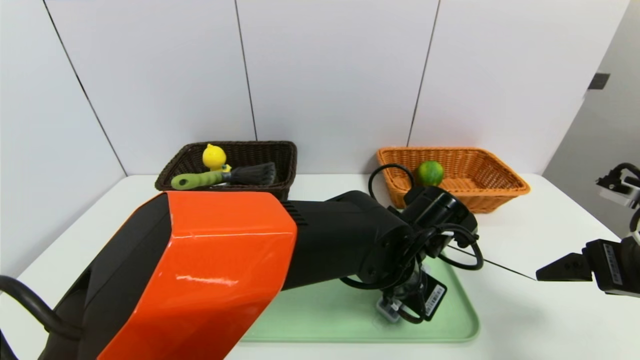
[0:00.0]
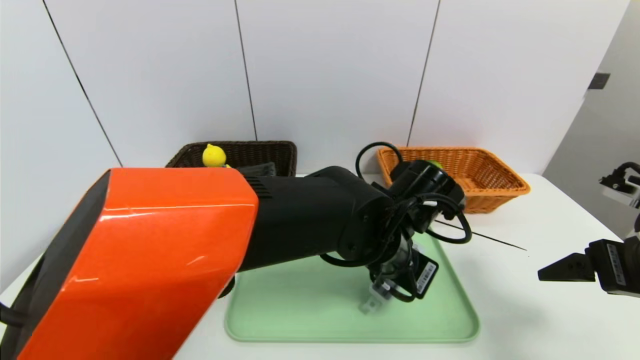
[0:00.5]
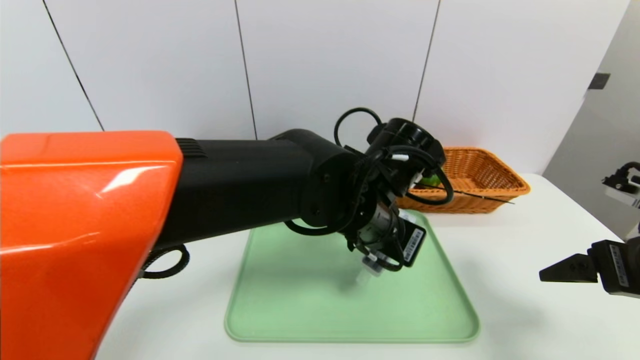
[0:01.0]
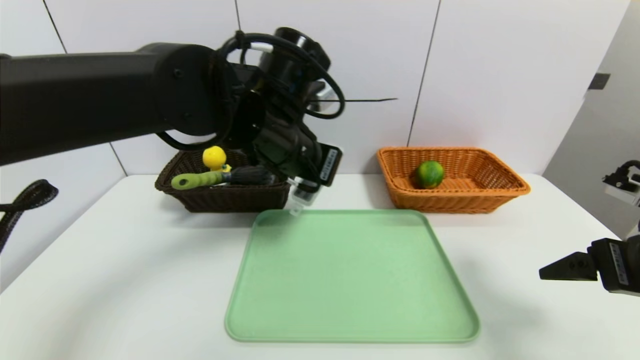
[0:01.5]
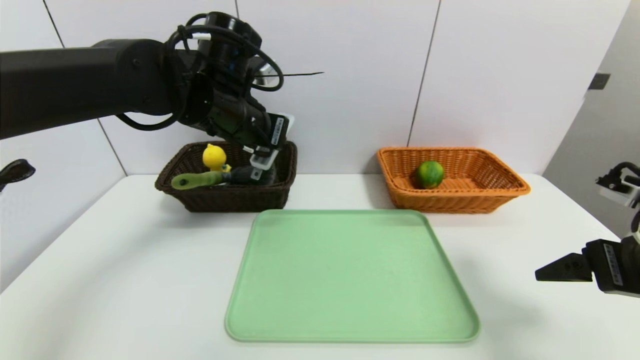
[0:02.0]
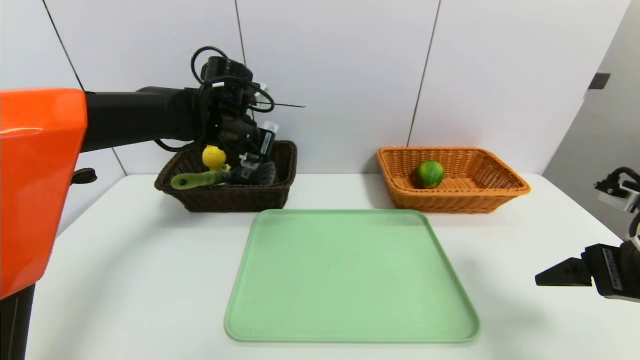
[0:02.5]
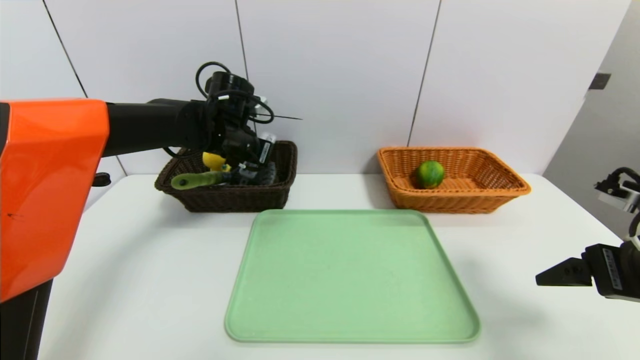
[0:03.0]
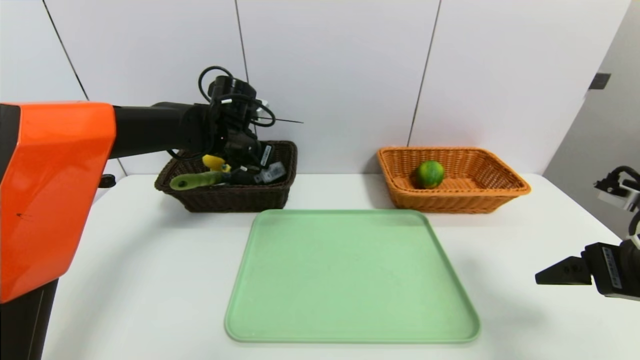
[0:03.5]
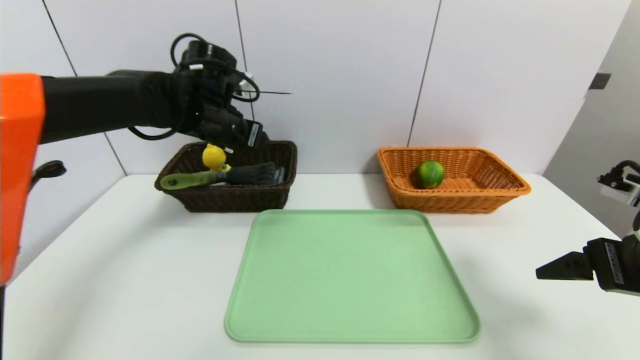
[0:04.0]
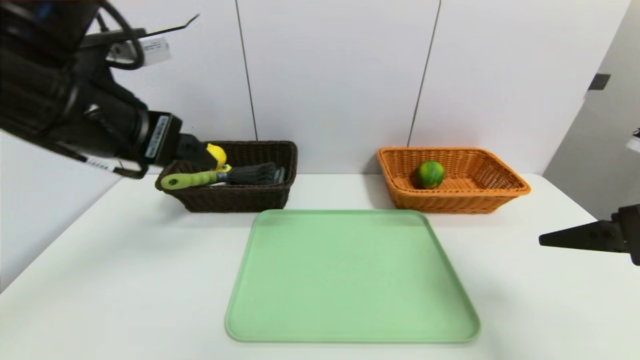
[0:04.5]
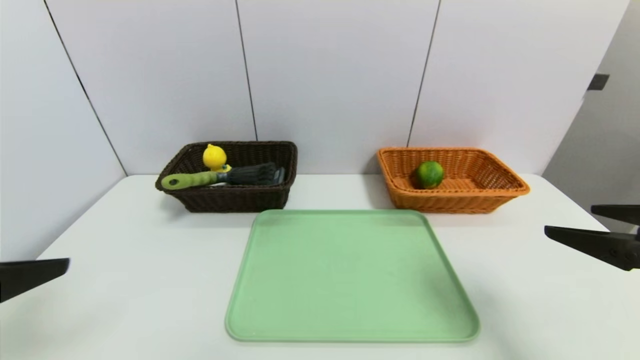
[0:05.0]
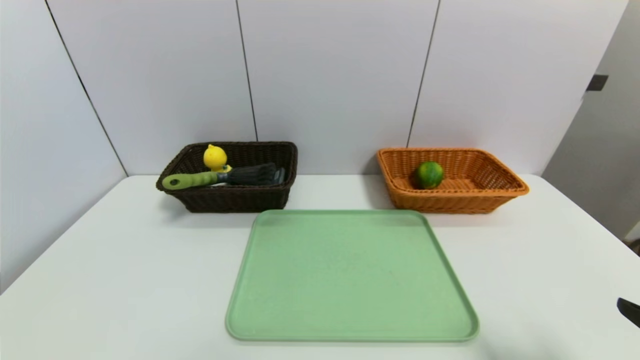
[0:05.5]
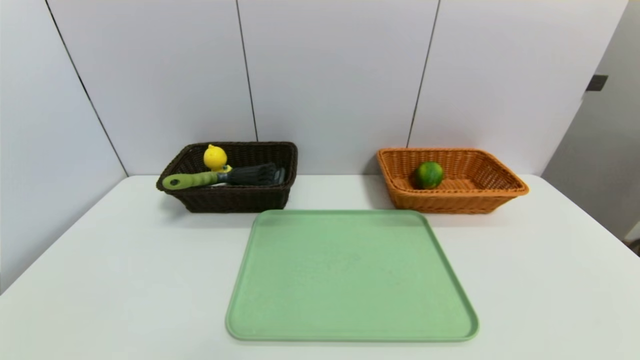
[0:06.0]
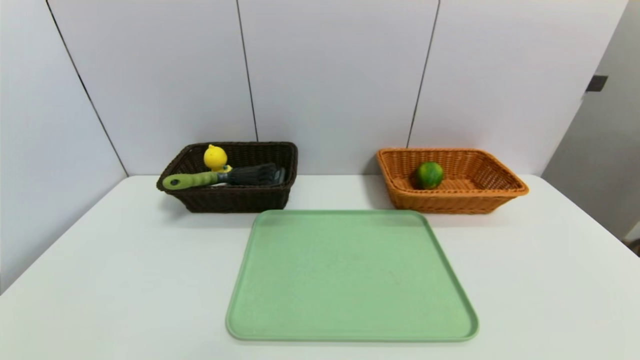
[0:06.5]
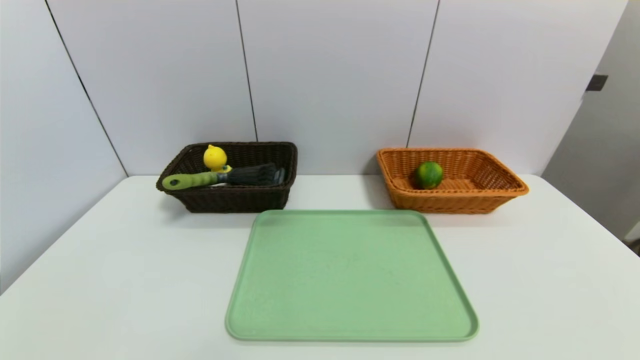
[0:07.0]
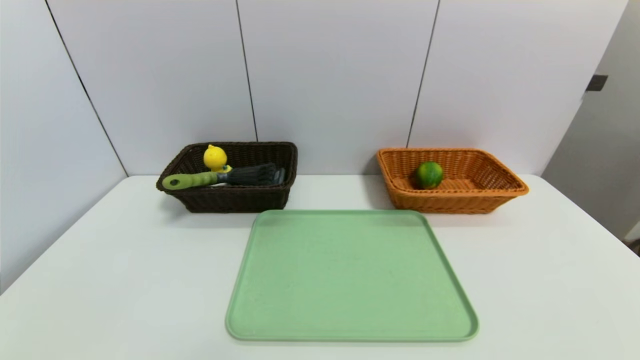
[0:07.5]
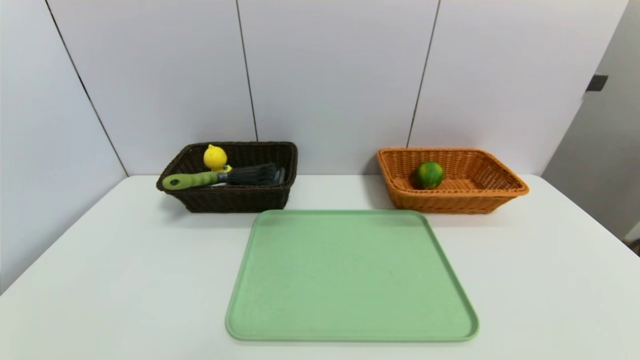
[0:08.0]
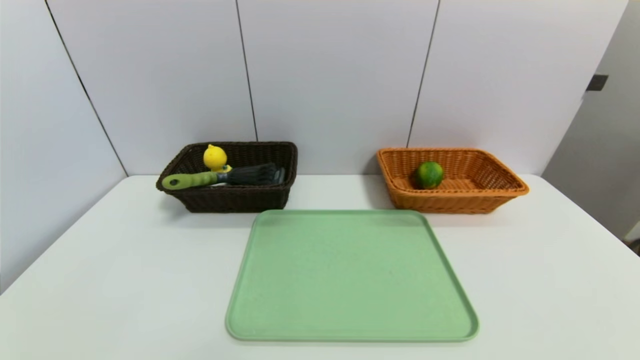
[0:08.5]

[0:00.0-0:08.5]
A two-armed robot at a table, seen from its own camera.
Task of the whole recording: place the food in the right basket with the right gripper, and place the non food items in the left basket with the left gripper.
Step, 0:00.0 to 0:03.5: Grasp the compass and put it in the left basket.
0:00.0 to 0:02.0: The left gripper moves to the left, upward and forward, some 30 cm.
0:02.0 to 0:04.0: The left gripper opens up.
0:04.0 to 0:06.5: The right gripper is displaced backward by roughly 20 cm. The left gripper travels backward by approximately 50 cm.

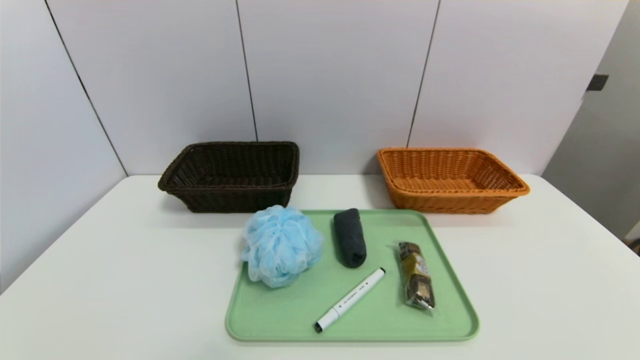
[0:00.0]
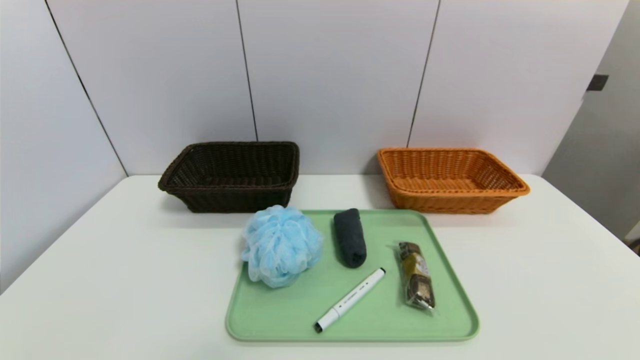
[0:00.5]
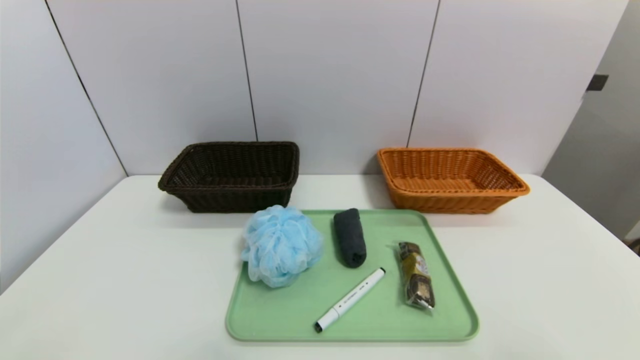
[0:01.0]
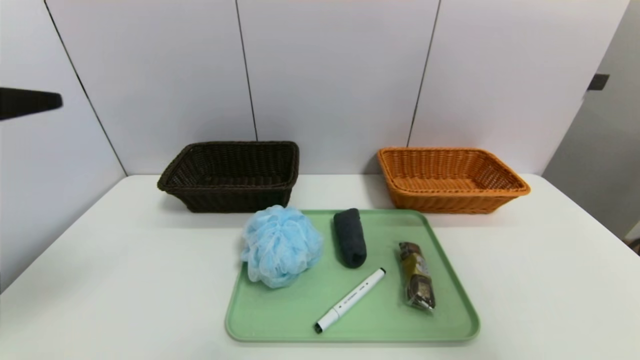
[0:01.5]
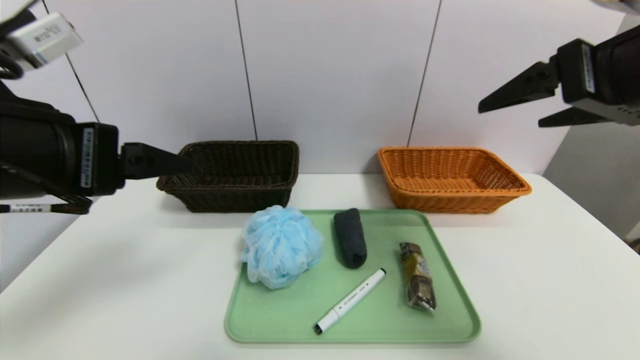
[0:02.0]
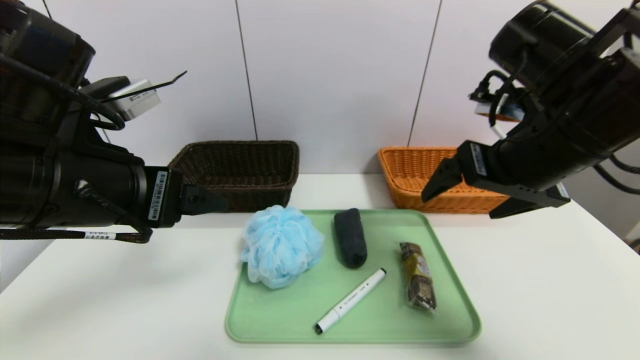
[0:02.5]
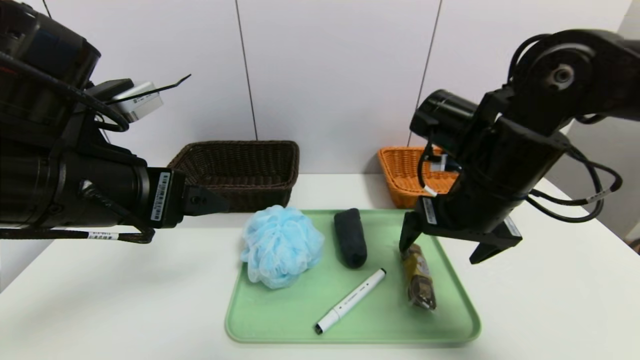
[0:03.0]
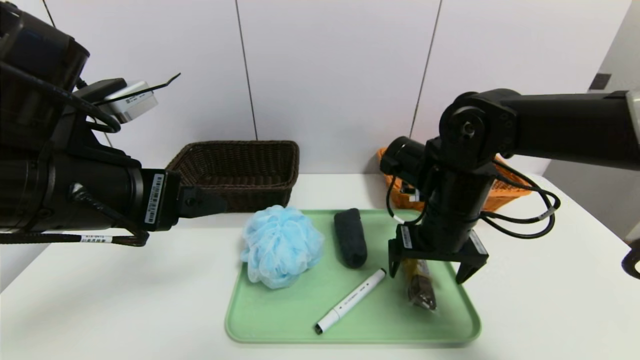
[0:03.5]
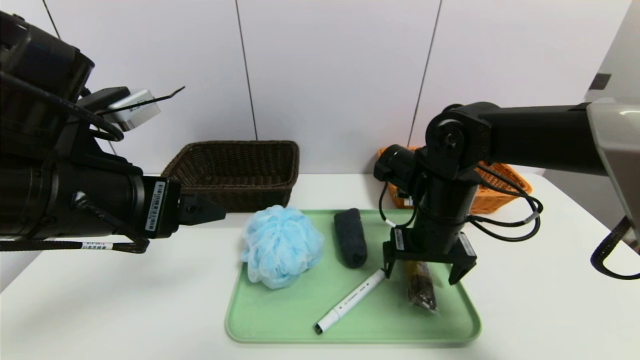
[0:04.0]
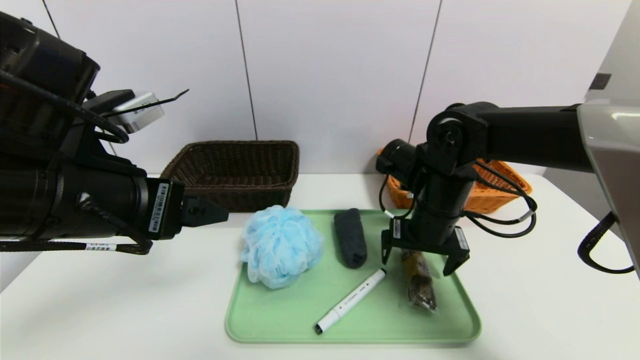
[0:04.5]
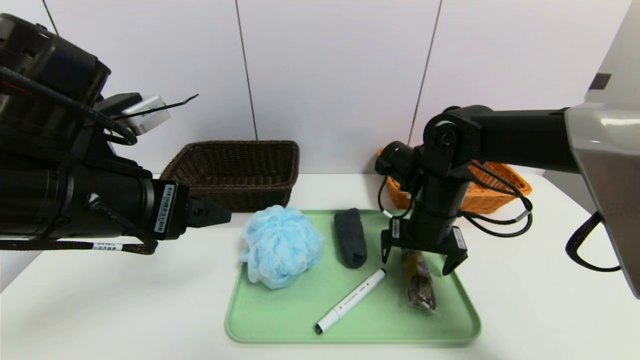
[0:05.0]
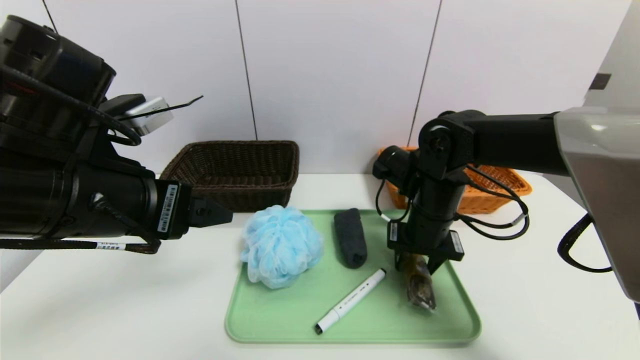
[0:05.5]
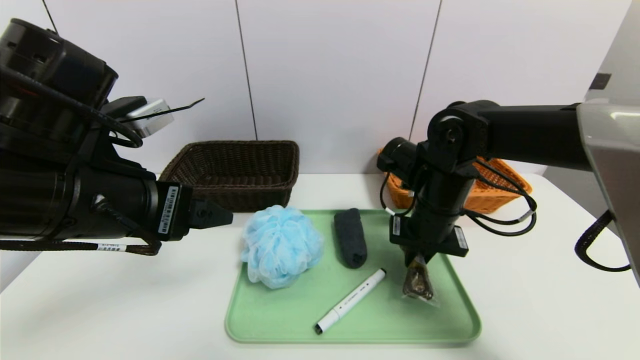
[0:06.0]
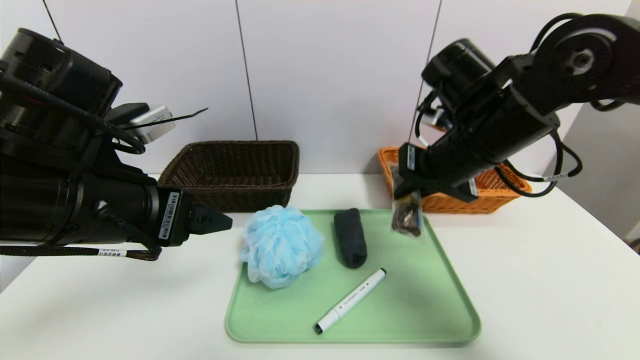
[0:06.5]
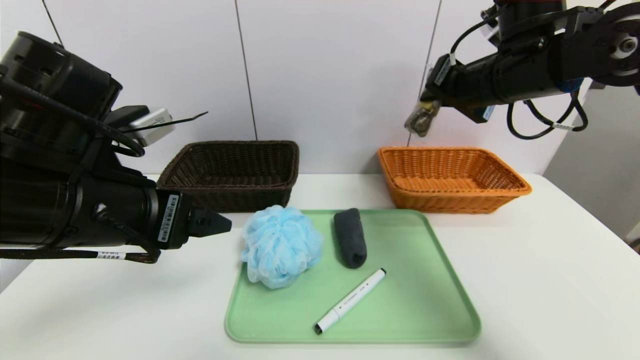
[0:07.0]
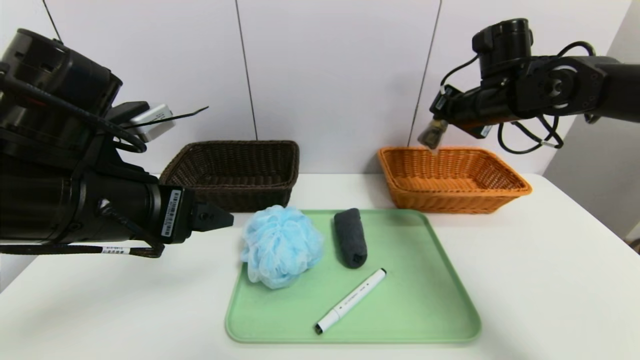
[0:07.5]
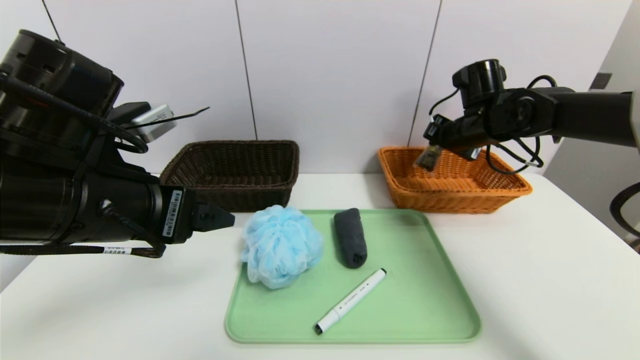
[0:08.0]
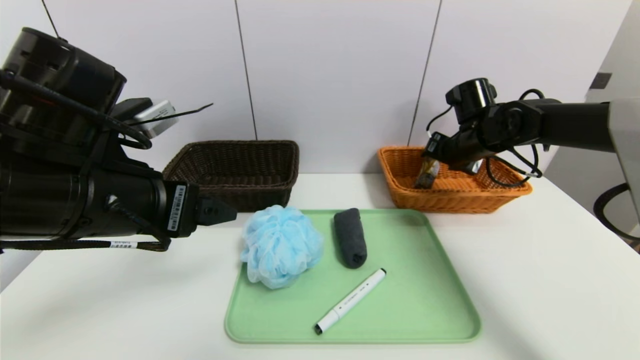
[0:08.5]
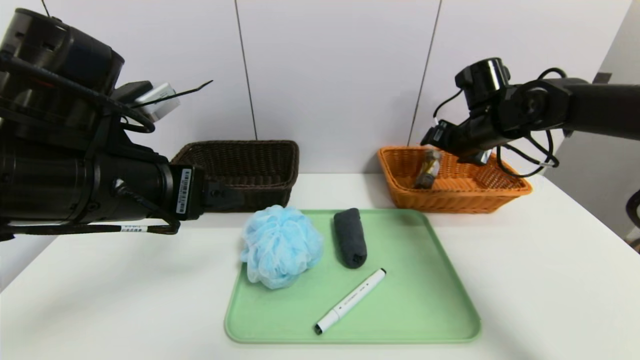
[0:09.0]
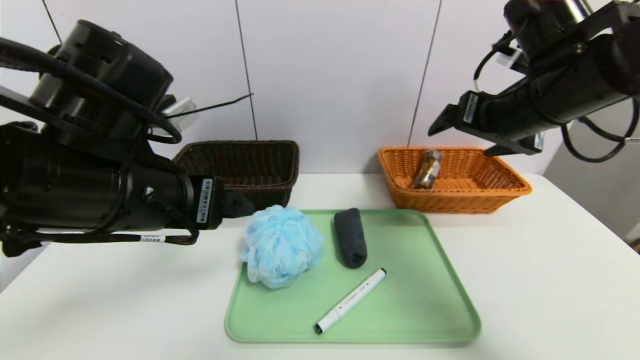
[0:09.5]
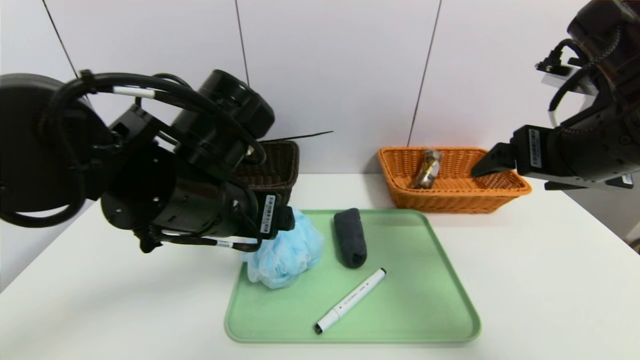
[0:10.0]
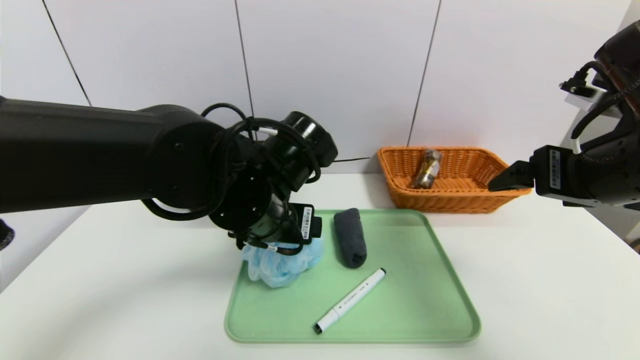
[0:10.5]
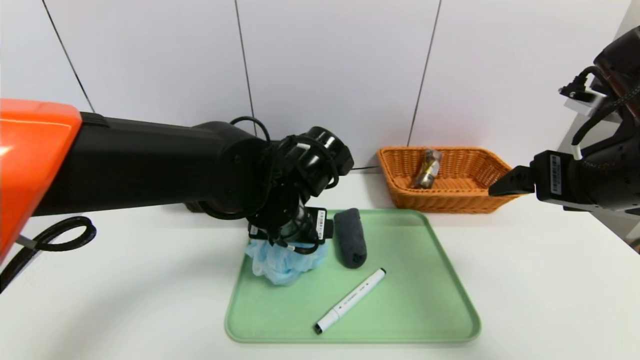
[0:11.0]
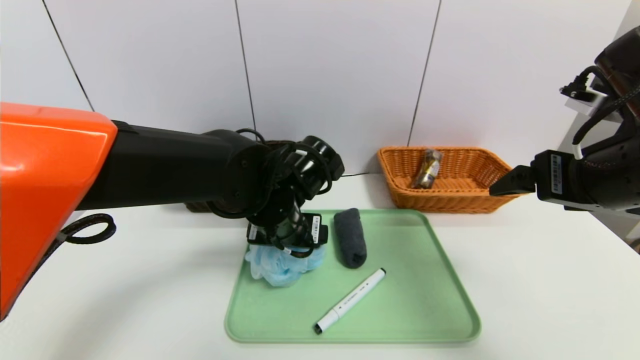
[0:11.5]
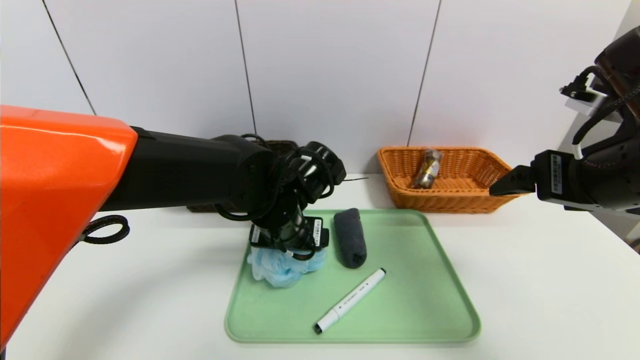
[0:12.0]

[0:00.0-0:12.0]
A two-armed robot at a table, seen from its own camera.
Task of the whole recording: place the food in the right basket with the right gripper, and place the non food items in the left basket with the left gripper.
Step, 0:00.0 to 0:09.0: Grasp the chocolate and put it in the right basket.
0:00.0 to 0:02.0: Both grippers travel together upward and forward, roughly 35 cm.
0:02.0 to 0:04.0: The right gripper moves downward, to the left and forward, roughly 25 cm.
0:04.0 to 0:06.0: The right gripper closes.
0:06.0 to 0:08.0: The right gripper goes roughly 15 cm forward and to the right, and travels upward and back again, some 15 cm each way.
0:08.0 to 0:10.0: The left gripper shifts approximately 10 cm to the right; the right gripper travels backward and upward by some 25 cm, and opens up.
0:10.0 to 0:12.0: The left gripper goes some 15 cm downward, forward and to the right.
